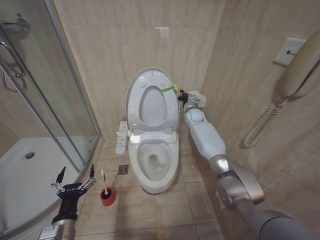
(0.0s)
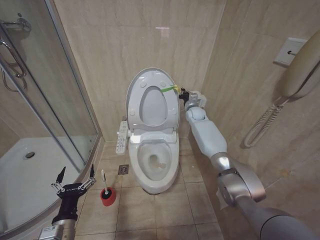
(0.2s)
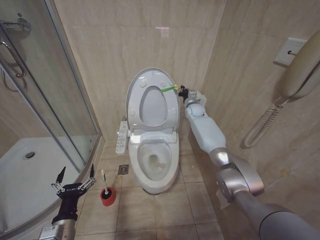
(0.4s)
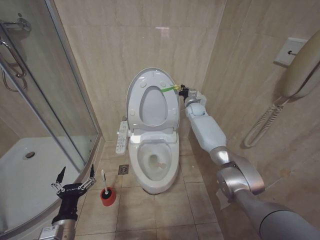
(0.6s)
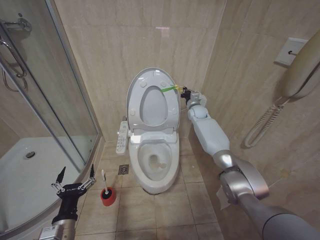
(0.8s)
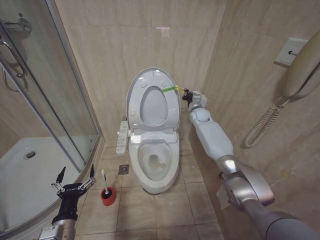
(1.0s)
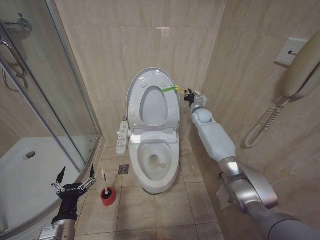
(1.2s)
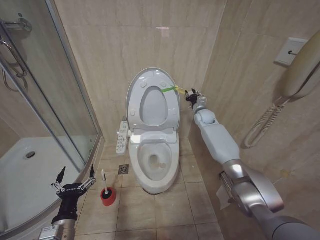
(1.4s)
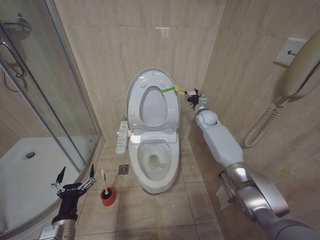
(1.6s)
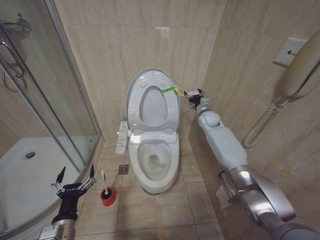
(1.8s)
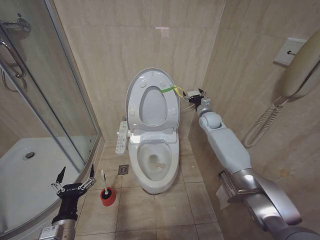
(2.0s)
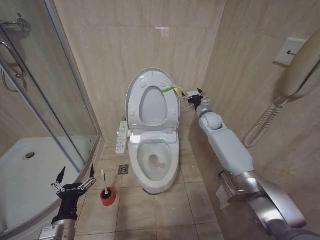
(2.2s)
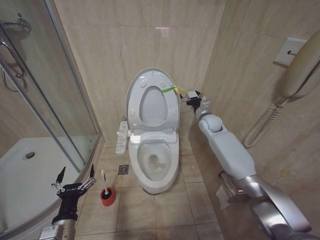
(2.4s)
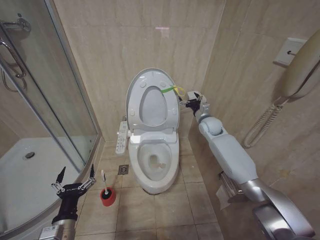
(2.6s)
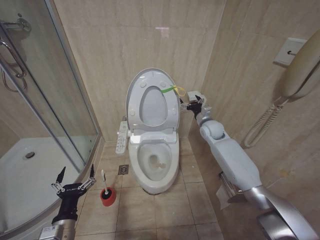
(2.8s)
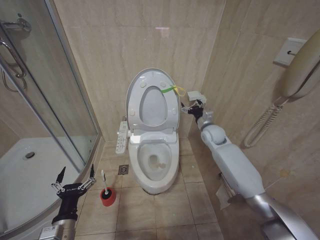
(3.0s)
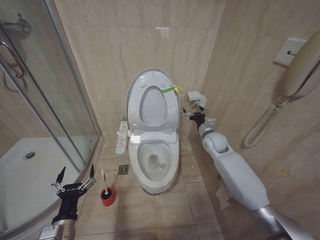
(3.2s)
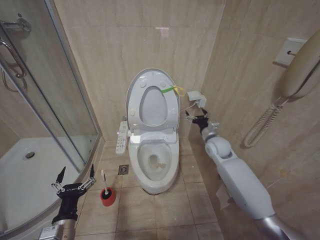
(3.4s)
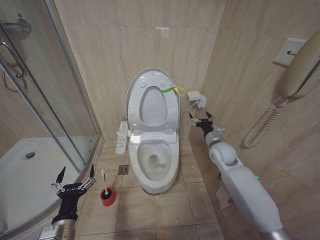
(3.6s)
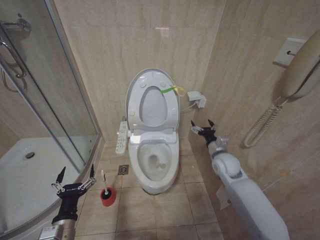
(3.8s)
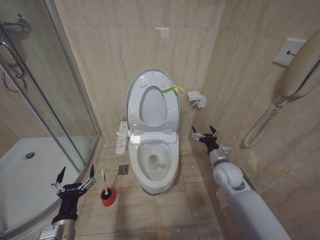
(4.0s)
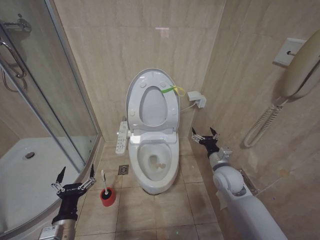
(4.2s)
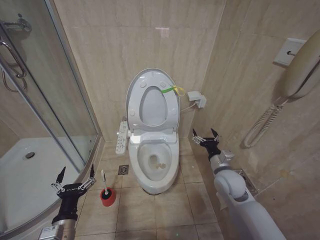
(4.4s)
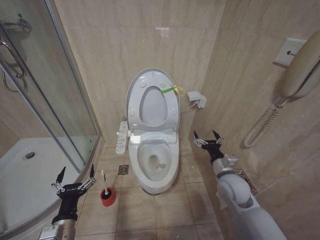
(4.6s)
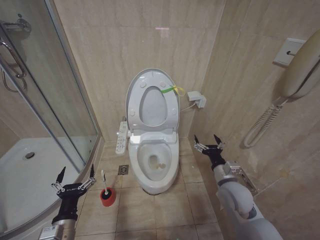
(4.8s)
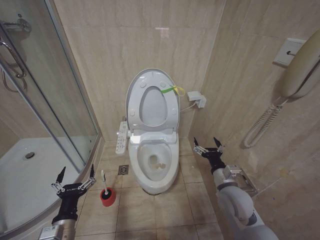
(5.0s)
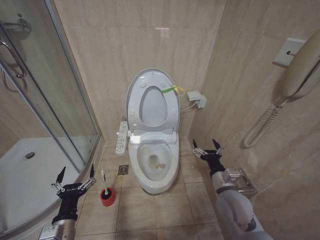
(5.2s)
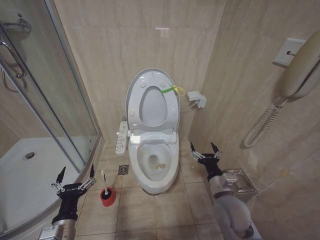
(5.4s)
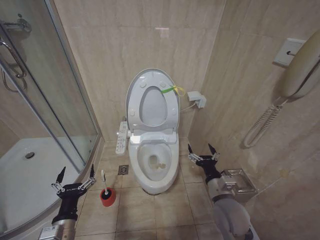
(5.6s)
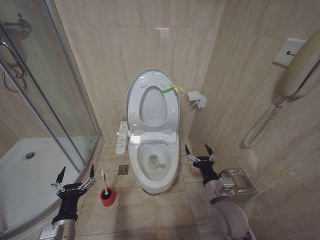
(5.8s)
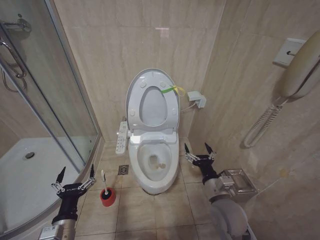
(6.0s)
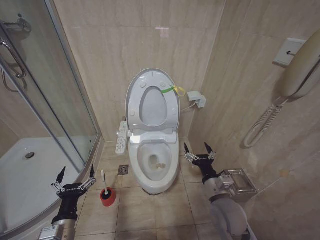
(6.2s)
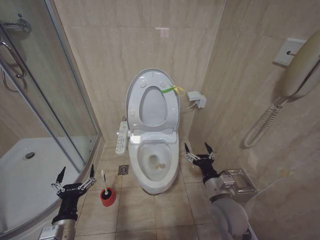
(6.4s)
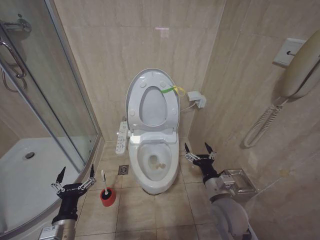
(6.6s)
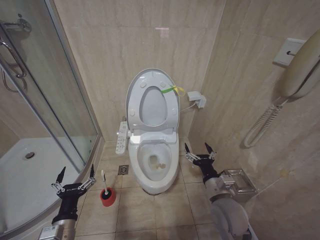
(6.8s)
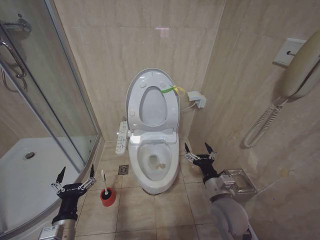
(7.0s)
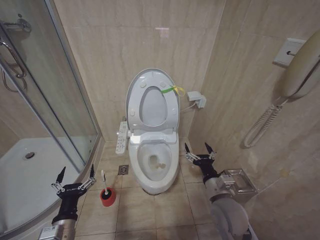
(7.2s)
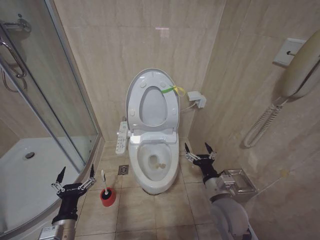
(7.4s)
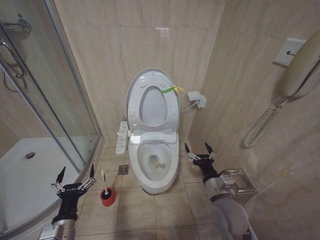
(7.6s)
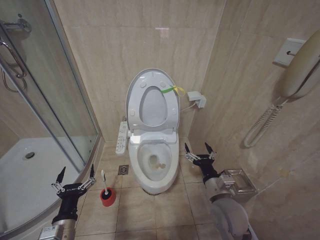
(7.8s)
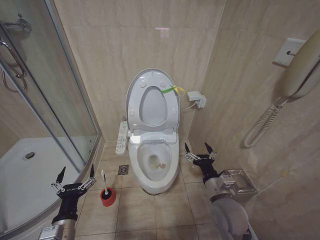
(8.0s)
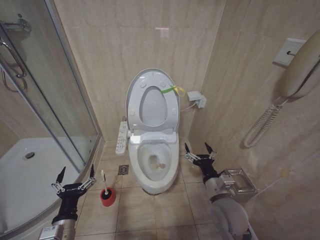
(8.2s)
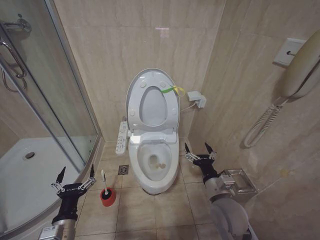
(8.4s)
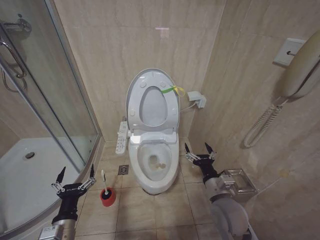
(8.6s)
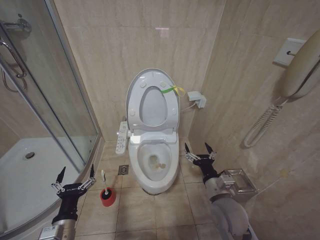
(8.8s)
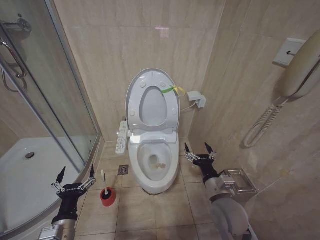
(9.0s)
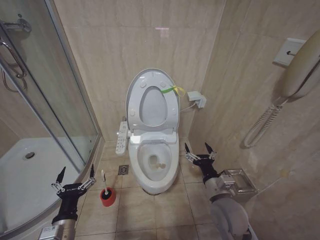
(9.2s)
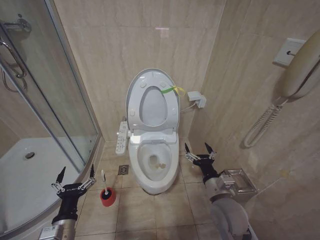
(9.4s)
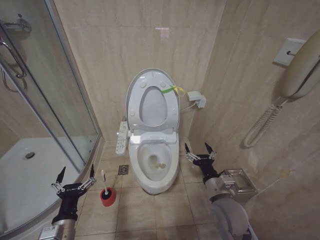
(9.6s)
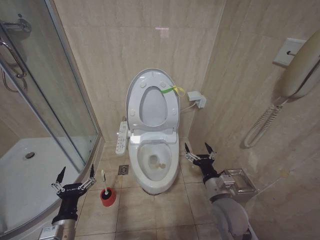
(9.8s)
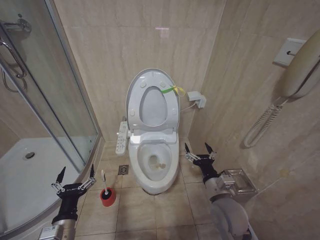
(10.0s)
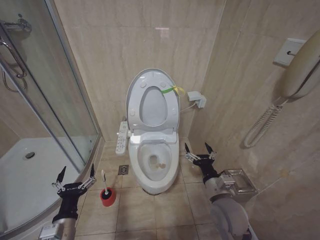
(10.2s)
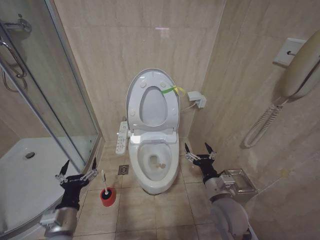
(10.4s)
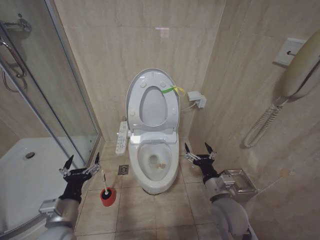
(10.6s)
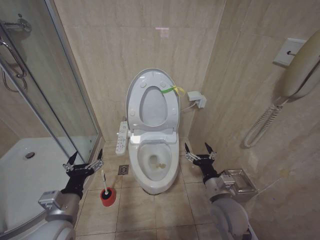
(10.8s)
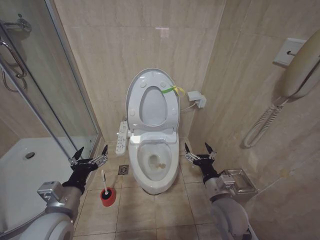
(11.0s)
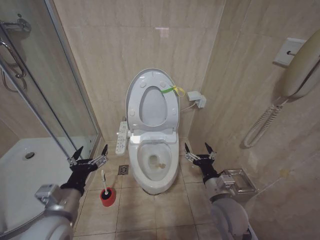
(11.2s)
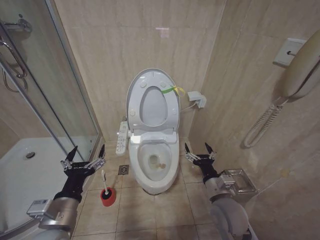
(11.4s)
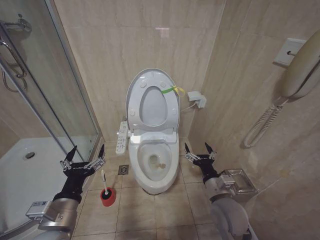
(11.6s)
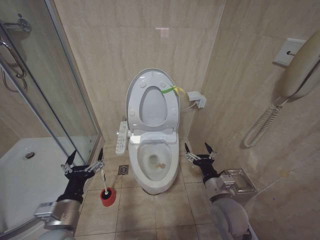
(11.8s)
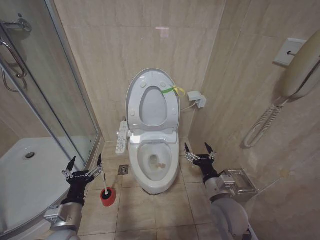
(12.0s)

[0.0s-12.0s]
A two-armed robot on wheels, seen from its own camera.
Task of the whole recording: Open the toilet lid, clean the toilet bowl with a toilet brush, close the toilet lid, and flush.
0.0s to 1.6s: The right gripper goes about 5 cm to the right, and opens.
1.6s to 3.0s: The right gripper travels backward by some 10 cm, and opens its fingers.
3.0s to 4.4s: The right gripper heads backward and downward, covering roughly 20 cm.
4.4s to 6.0s: The right gripper moves backward and to the left, roughly 10 cm.
6.0s to 9.0s: Both grippers stay put.
9.0s to 10.4s: The grippers stay close to where they were, moving slightly.
10.4s to 12.0s: The left gripper reaches about 10 cm upward, then returns.

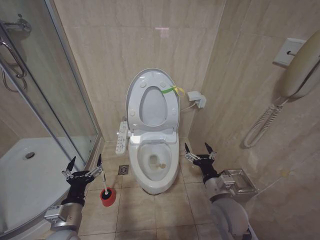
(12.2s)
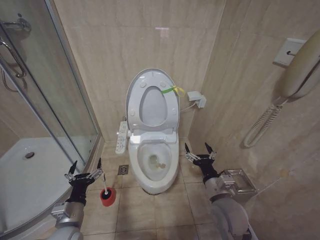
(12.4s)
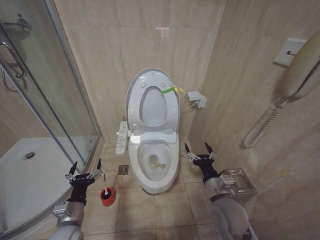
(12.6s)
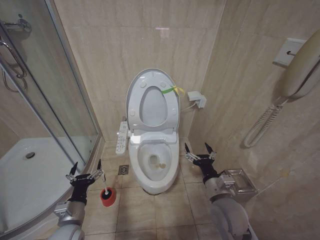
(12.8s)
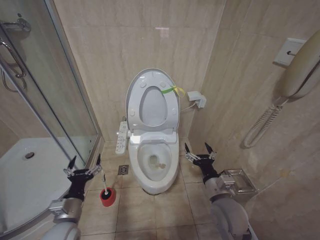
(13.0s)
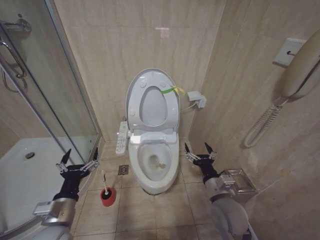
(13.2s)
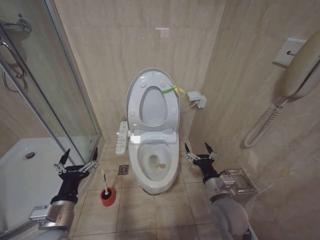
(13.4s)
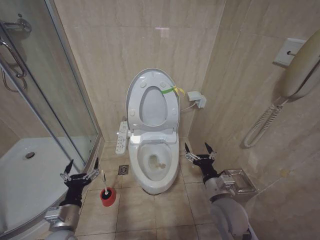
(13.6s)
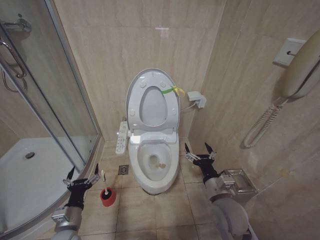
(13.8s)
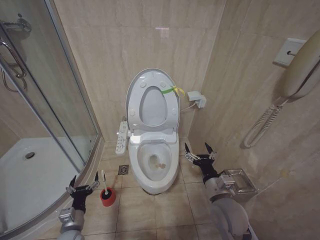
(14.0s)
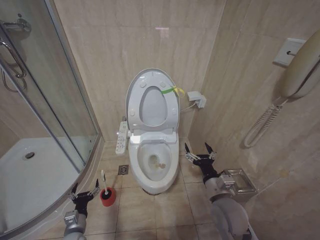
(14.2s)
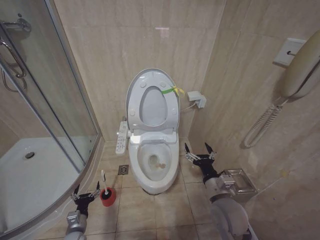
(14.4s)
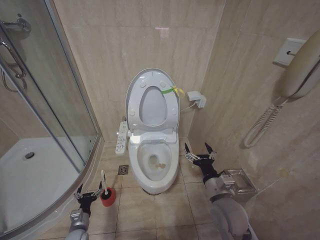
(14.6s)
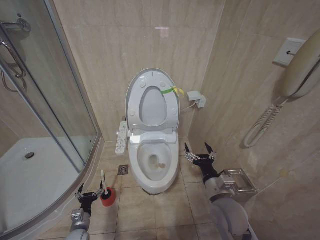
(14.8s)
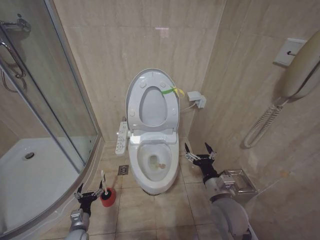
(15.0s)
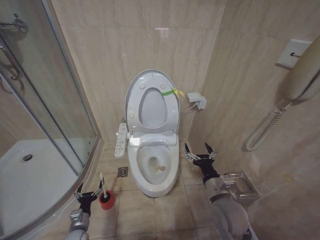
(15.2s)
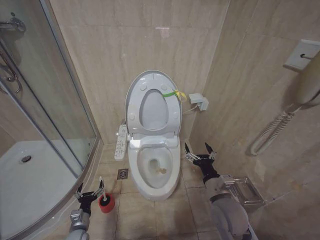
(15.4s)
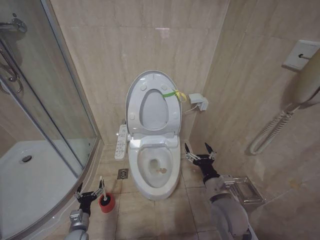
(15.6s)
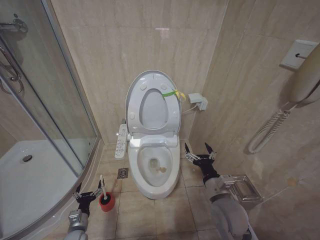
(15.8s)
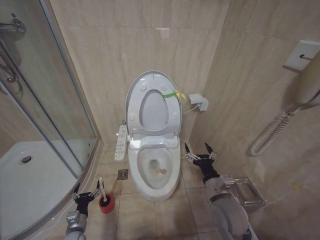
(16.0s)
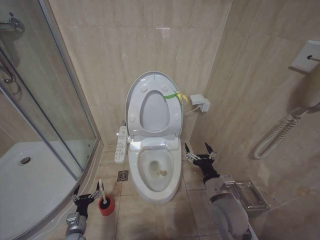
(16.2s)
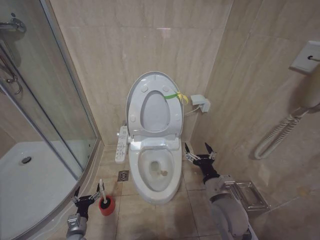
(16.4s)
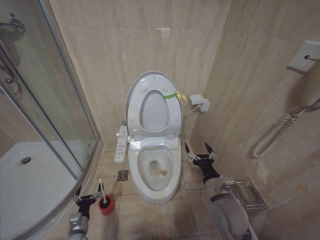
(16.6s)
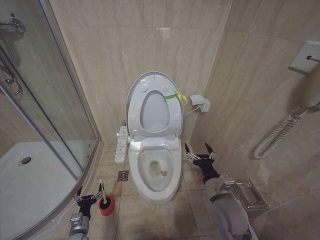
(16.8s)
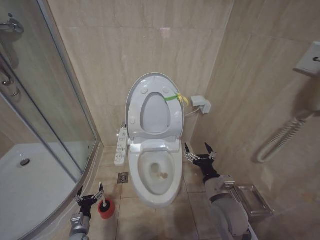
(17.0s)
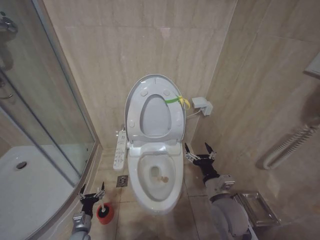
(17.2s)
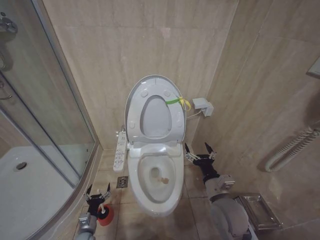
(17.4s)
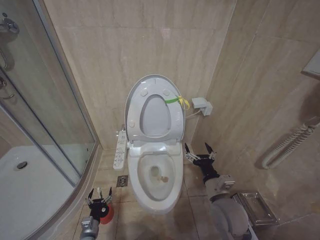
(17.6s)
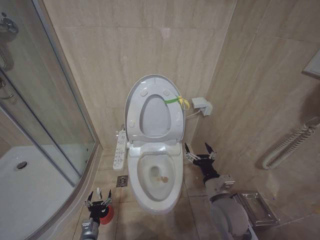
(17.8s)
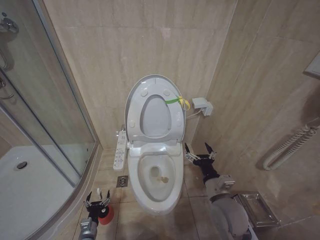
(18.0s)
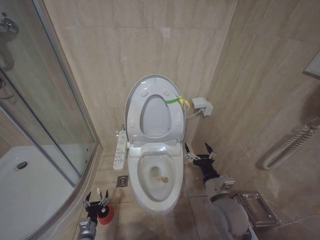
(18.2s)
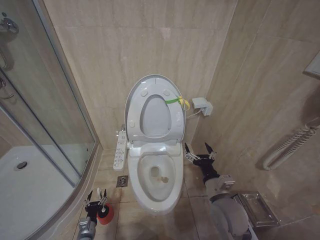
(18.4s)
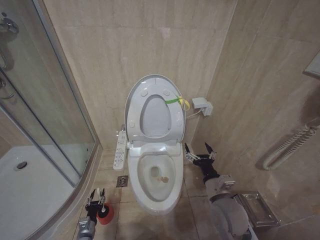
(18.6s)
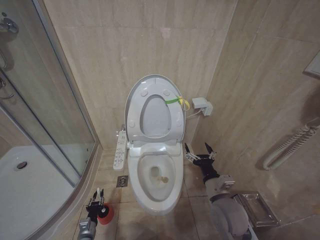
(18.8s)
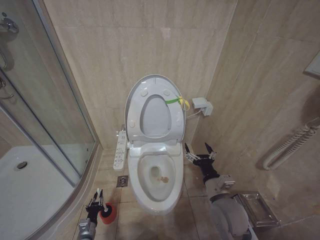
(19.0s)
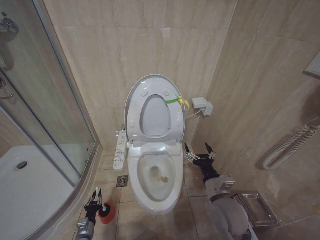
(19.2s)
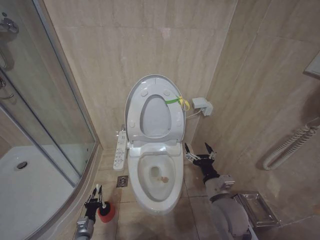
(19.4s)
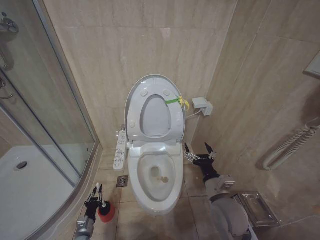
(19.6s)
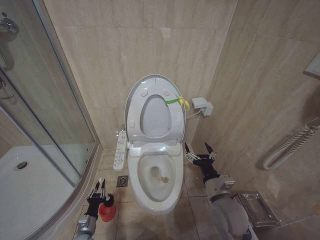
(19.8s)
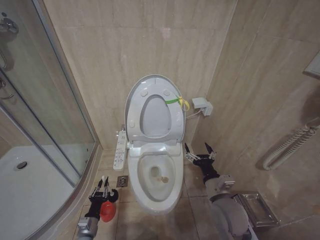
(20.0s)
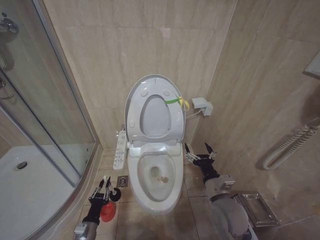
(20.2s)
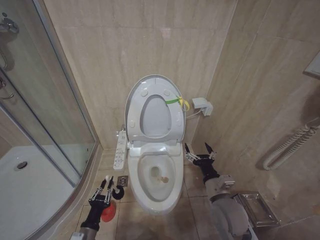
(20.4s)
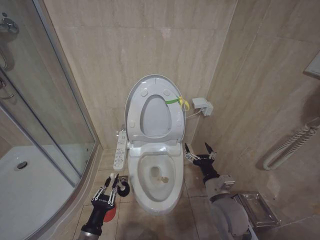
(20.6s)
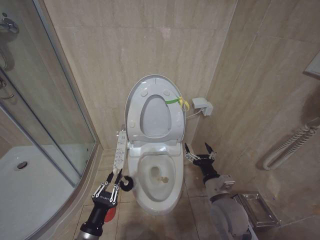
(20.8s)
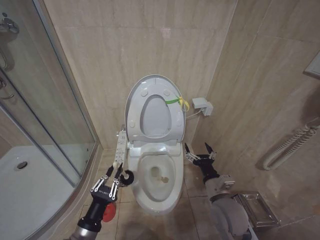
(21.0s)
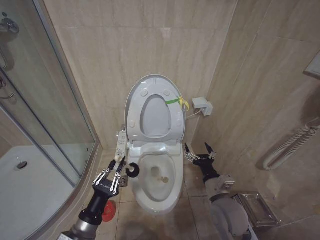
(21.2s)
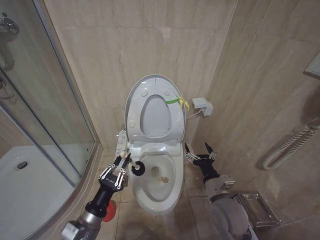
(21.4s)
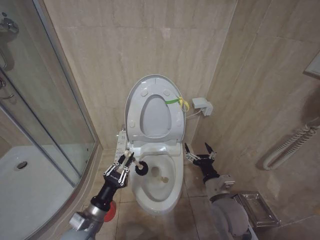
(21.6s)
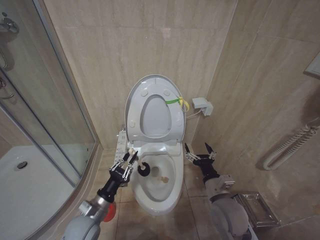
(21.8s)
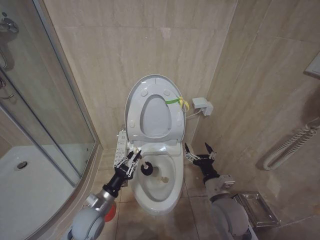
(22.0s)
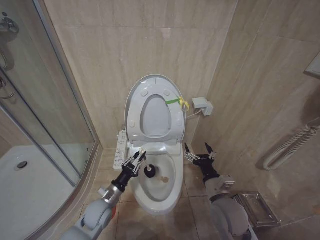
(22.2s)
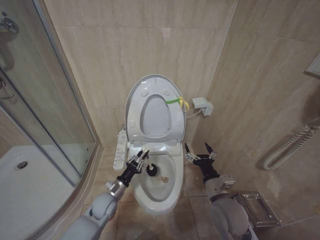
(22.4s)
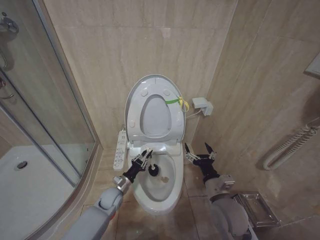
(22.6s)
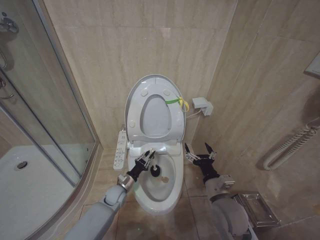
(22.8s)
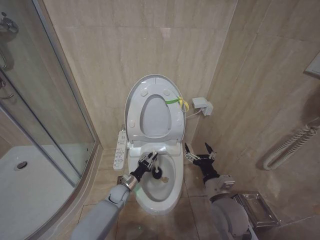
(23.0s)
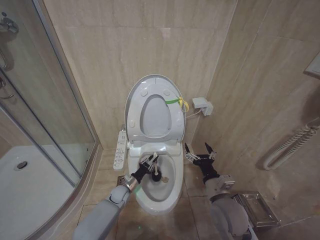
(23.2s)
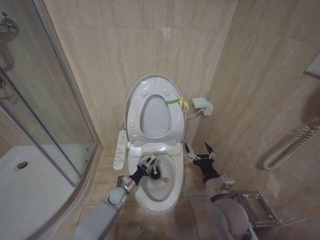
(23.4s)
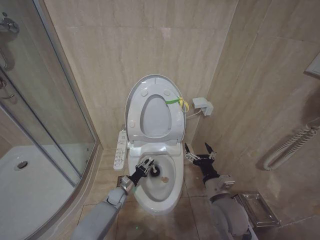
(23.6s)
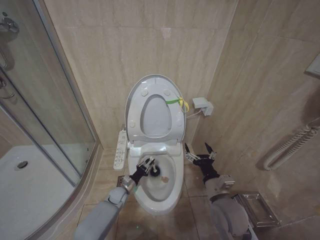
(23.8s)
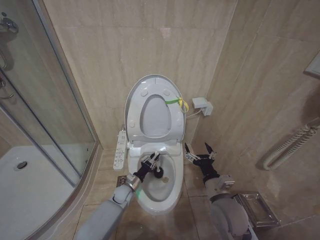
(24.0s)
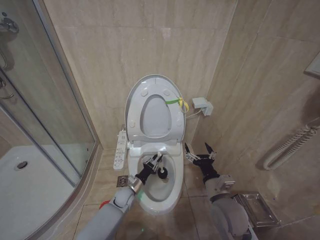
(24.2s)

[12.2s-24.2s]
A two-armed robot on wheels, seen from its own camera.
Task of the whole recording: Open the toilet lid, clean the toilet bowl with a toilet brush, close the toilet lid, and flush.
12.2s to 13.8s: The left gripper swings up and down, roughly 10 cm each way, with 2 reversals.
13.8s to 15.2s: The left gripper heads downward, covering approximately 20 cm.
15.2s to 16.6s: The grippers make only small movements.
16.6s to 18.2s: The left gripper moves some 5 cm.
18.2s to 19.8s: The left gripper closes up.
19.8s to 21.2s: The left gripper heads upward, covering some 25 cm.
21.2s to 22.6s: The left gripper shifts about 25 cm forward and downward.
22.6s to 24.2s: The left gripper heads to the right, covering roughly 5 cm.
